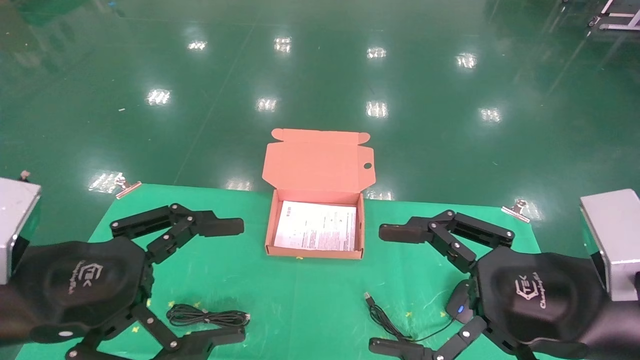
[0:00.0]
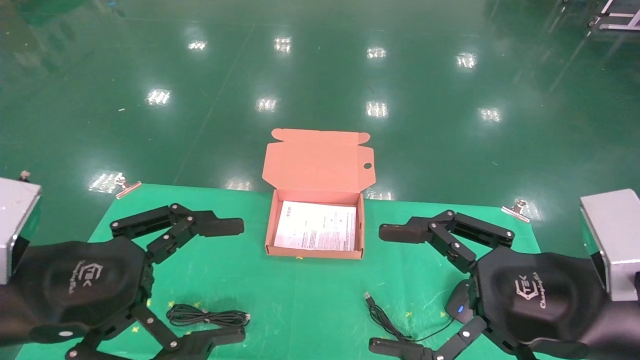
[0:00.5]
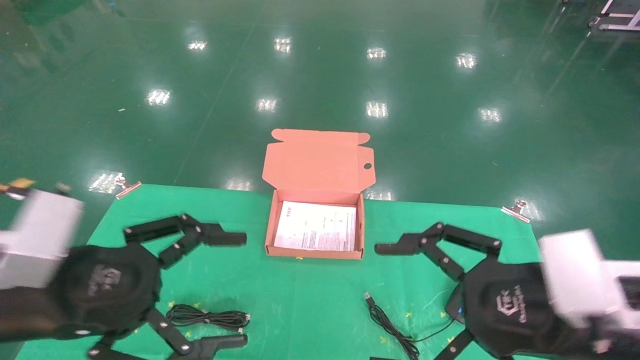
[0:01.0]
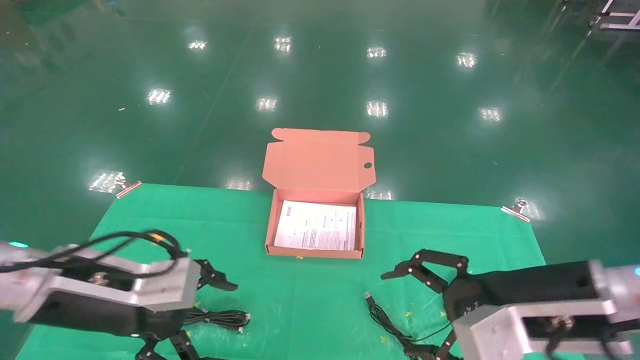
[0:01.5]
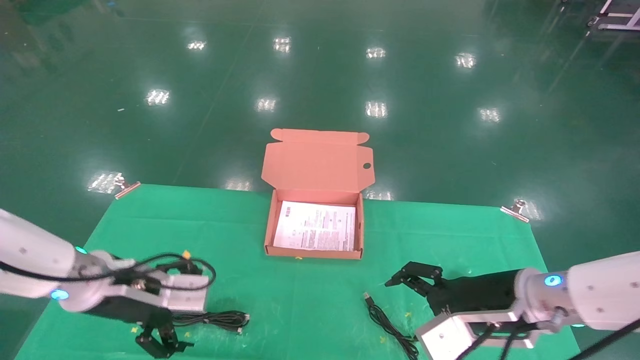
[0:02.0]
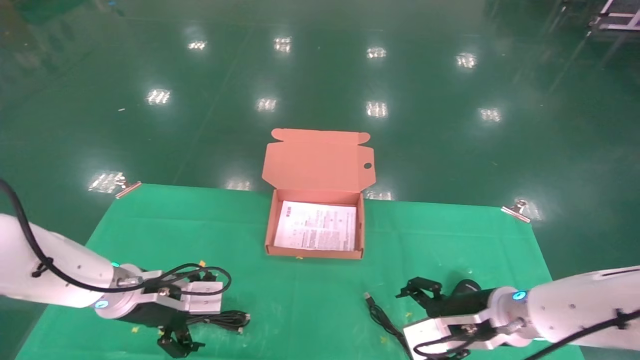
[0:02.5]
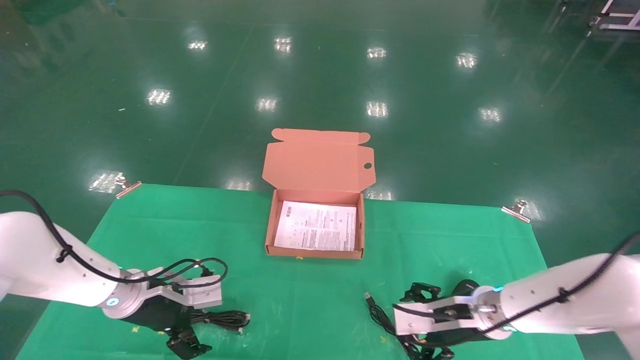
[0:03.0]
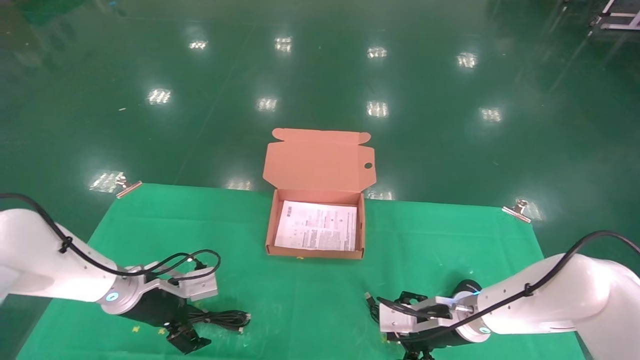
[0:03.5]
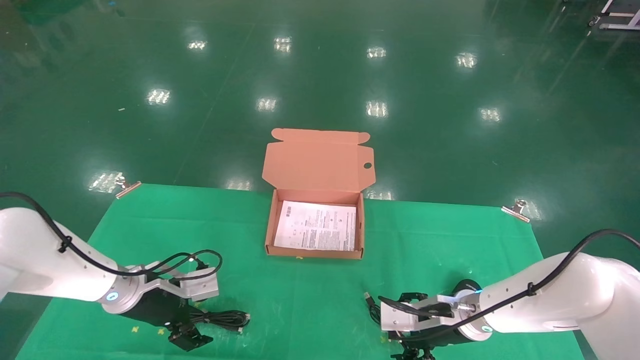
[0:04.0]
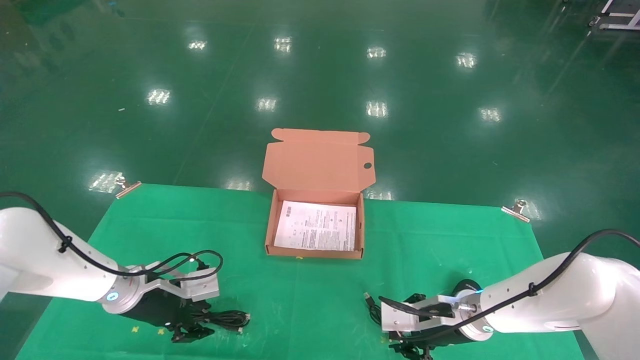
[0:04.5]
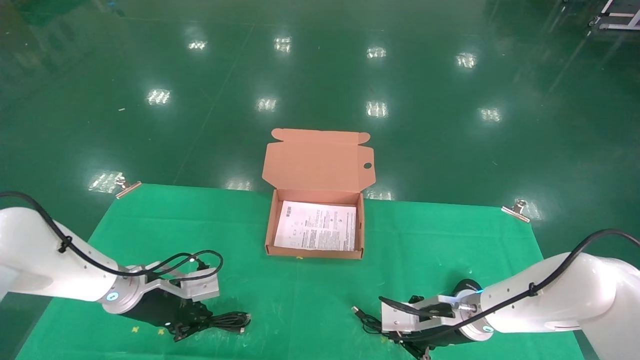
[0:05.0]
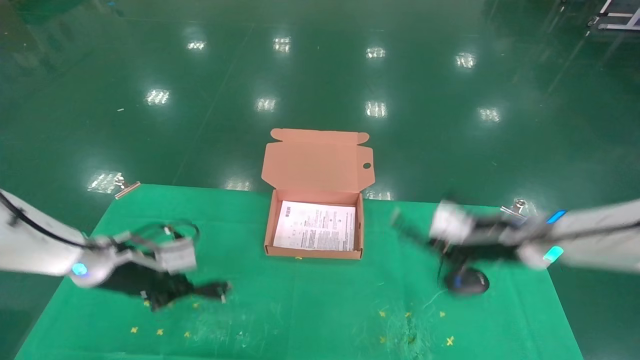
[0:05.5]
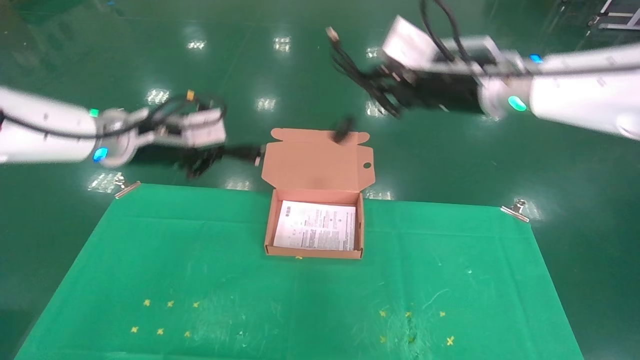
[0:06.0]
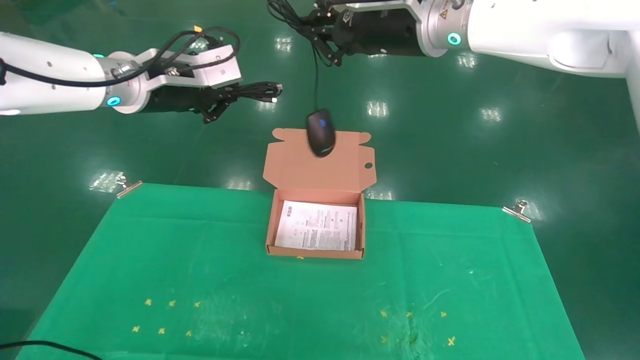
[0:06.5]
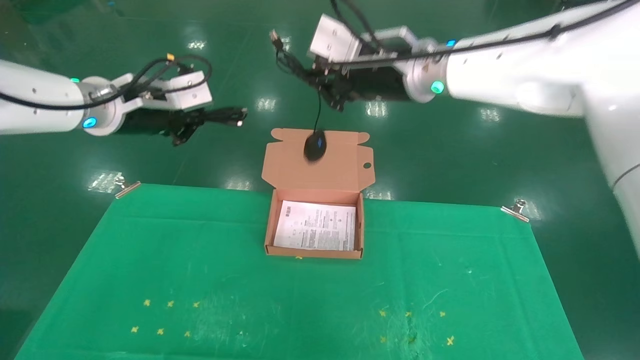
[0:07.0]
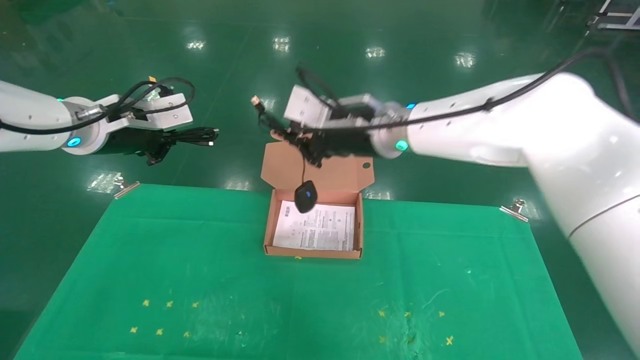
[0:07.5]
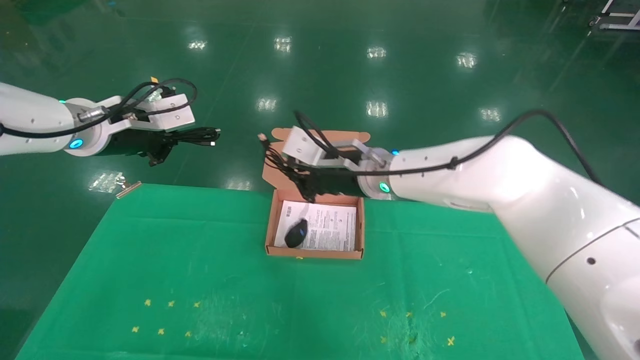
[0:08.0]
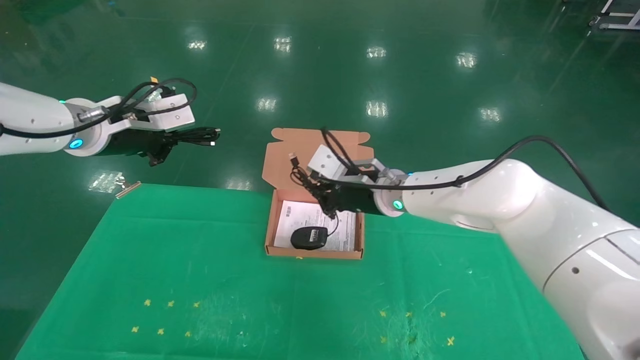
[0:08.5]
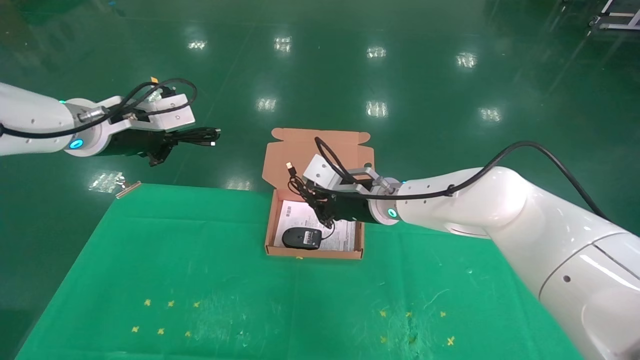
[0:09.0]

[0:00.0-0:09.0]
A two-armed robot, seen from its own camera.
Task of the whole recording: grasp data cable left put into box grasp mouse right put into box.
Step, 0:01.5 to 0:05.5: Grab and pick up both the mouse and power cord from the accessory packaging area at the same time.
0:00.0 to 0:02.0: Both grippers move forward and downward, approximately 15 cm.
0:02.0 to 0:04.5: The left gripper moves forward and downward, roughly 10 cm, and closes. Meanwhile the right gripper shifts approximately 15 cm downward and forward, and closes.
0:04.5 to 0:07.0: Both grippers travel together upward, approximately 30 cm. The left gripper closes up. The right gripper closes its fingers.
0:07.0 to 0:09.0: The right gripper goes about 20 cm downward.

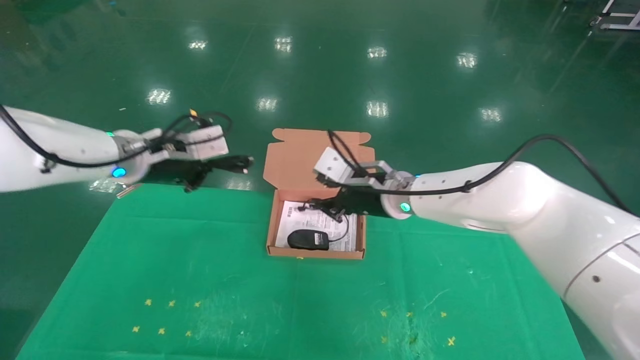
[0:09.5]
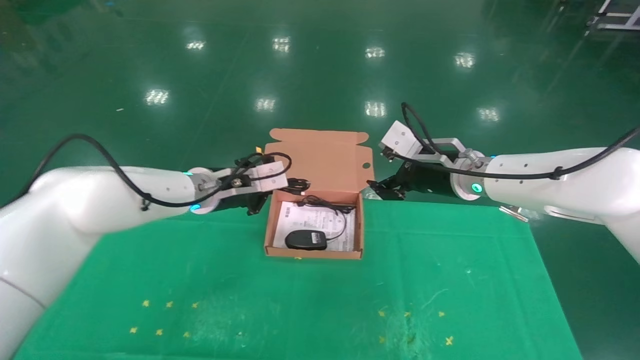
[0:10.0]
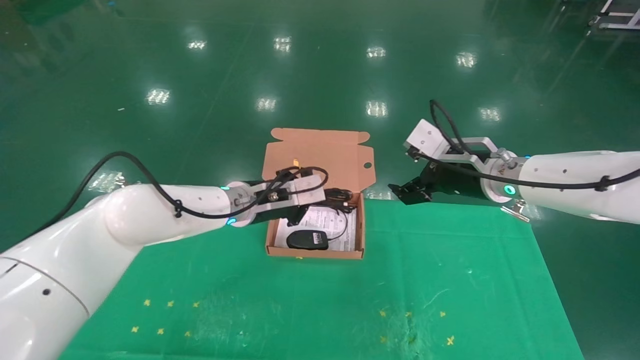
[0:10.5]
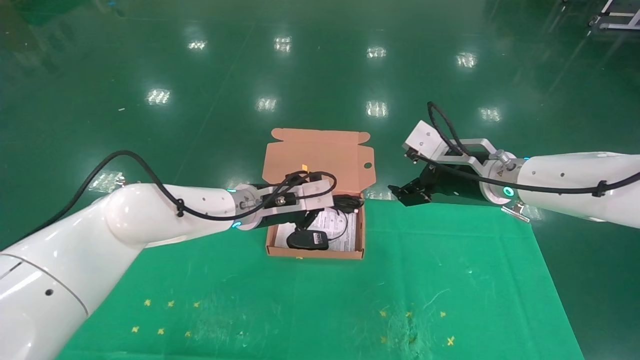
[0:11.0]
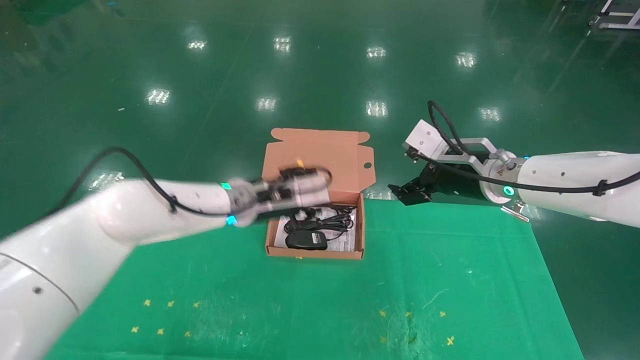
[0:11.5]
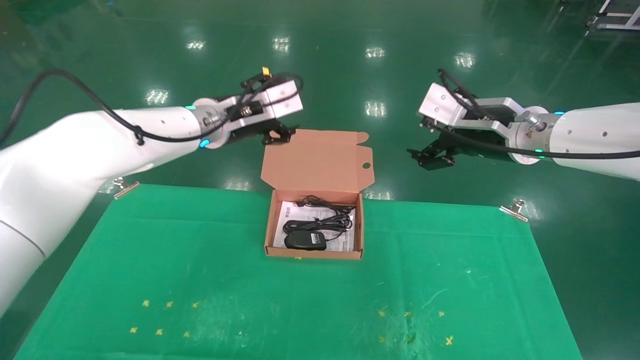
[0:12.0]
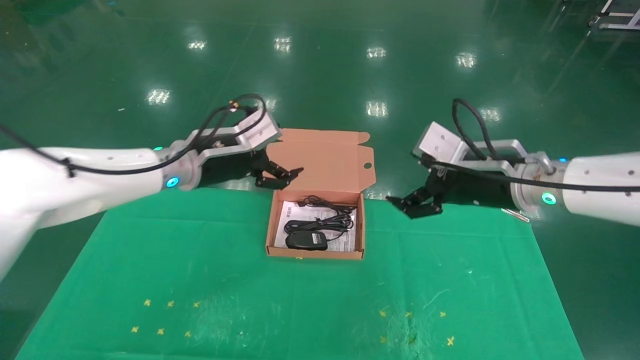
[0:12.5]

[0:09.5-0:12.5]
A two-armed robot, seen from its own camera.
Task of the whole recording: grasp data cable left put into box grasp mouse right put into box.
0:09.5 to 0:11.0: The right gripper heads to the right, covering some 10 cm, and opens up. The left gripper moves to the right and downward, roughly 15 cm.
0:11.0 to 0:12.5: The right gripper travels backward by some 5 cm. Meanwhile the left gripper is displaced to the left and upward by approximately 10 cm, and opens up.
